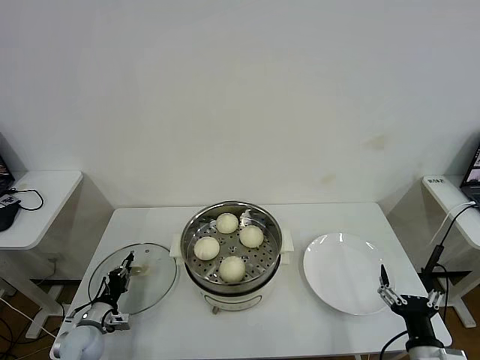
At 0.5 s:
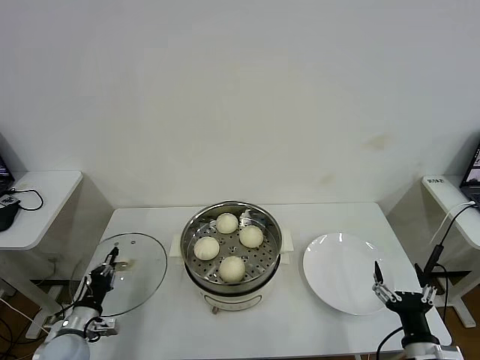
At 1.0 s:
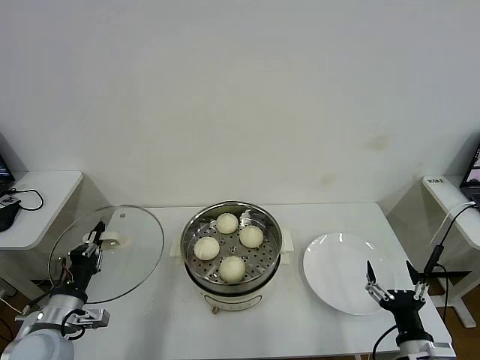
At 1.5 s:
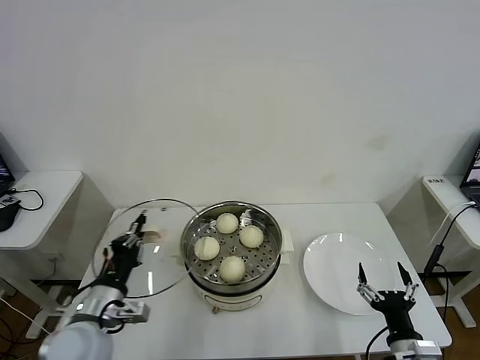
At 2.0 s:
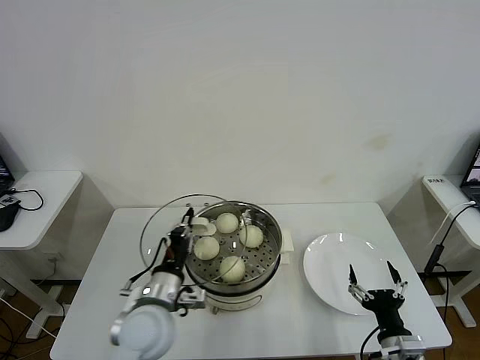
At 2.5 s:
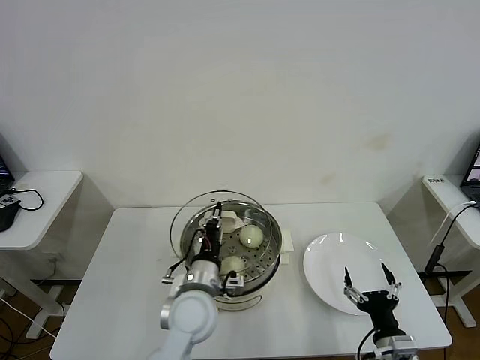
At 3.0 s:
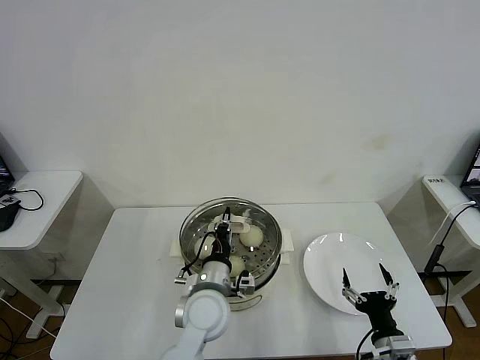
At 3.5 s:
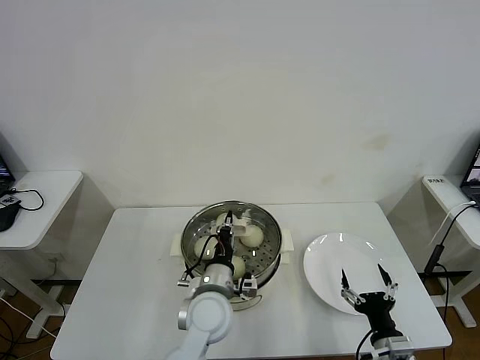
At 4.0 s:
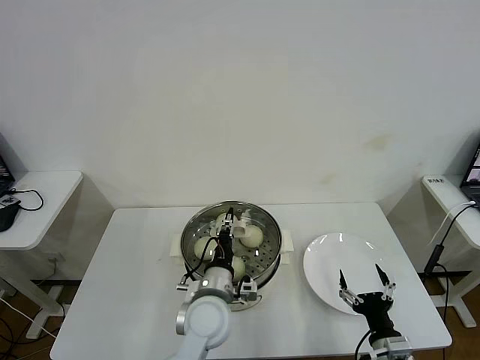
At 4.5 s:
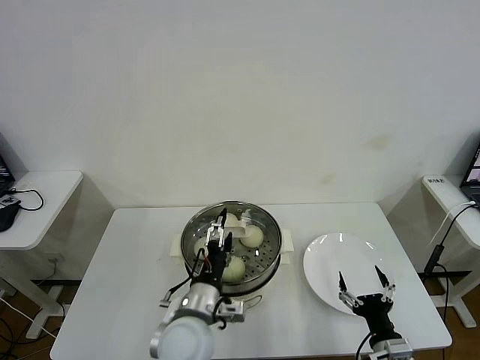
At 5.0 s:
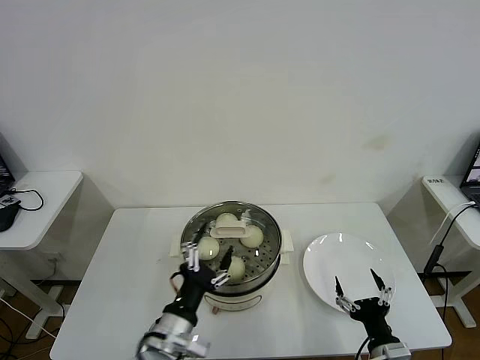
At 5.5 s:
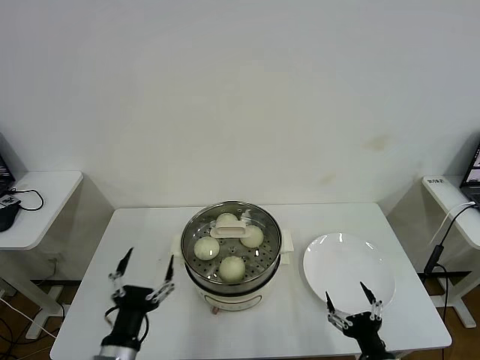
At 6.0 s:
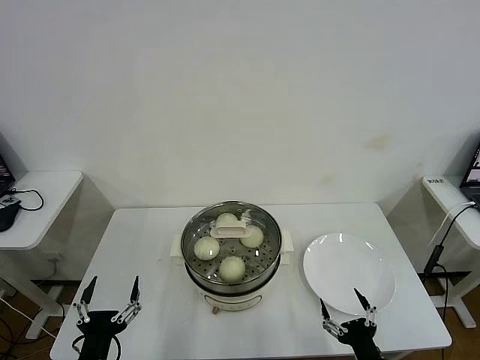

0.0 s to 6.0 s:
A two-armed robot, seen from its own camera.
Task of the whole recording: take steamed baozi put them in steamer then cover it.
Step, 0.5 to 4.0 s: Place the pot lid on the steamer with left gripper.
0.0 to 2.0 s: The left gripper goes some 30 cm to the right and upward.
2.0 to 4.0 s: The left gripper is displaced to the right by roughly 10 cm.
4.0 to 6.0 s: The right gripper shifts by roughly 5 cm, while the left gripper shifts approximately 30 cm to the left and backward, and opens.
